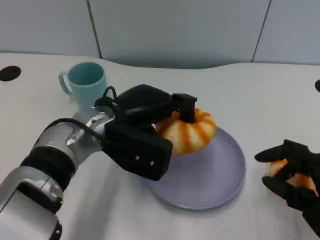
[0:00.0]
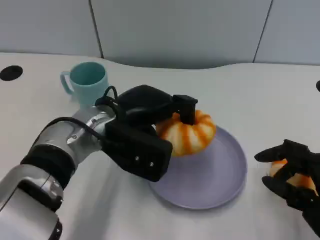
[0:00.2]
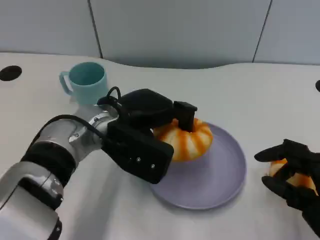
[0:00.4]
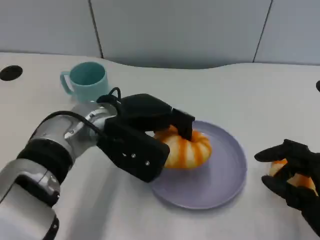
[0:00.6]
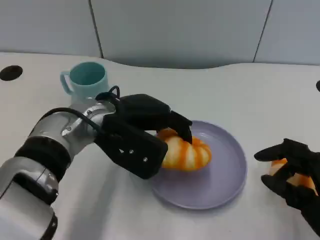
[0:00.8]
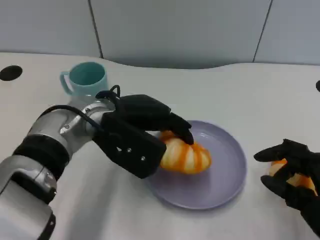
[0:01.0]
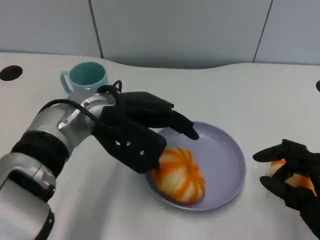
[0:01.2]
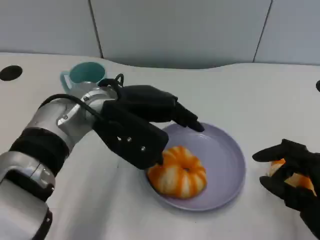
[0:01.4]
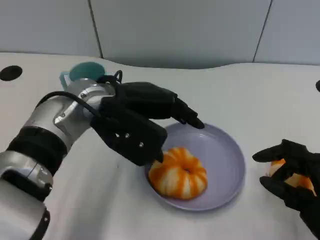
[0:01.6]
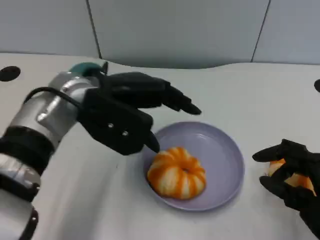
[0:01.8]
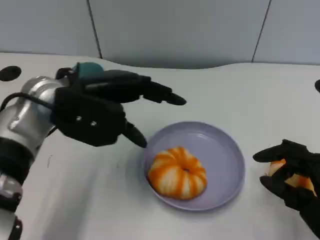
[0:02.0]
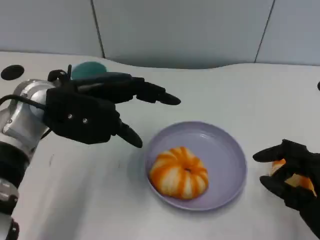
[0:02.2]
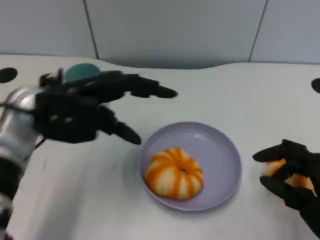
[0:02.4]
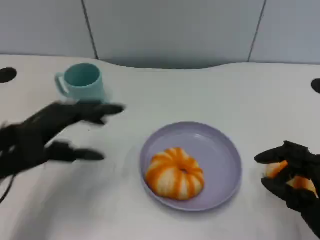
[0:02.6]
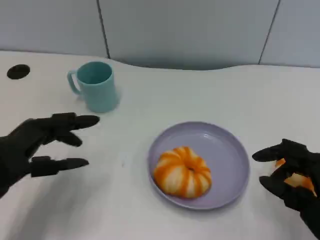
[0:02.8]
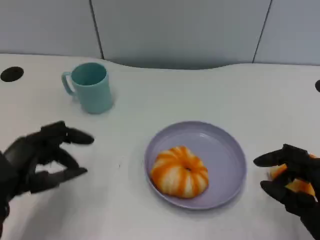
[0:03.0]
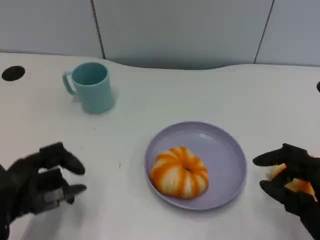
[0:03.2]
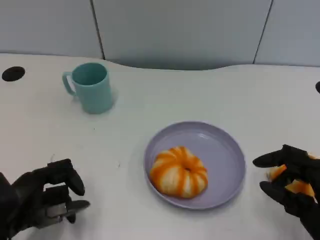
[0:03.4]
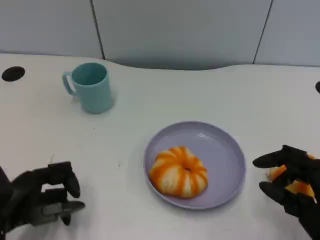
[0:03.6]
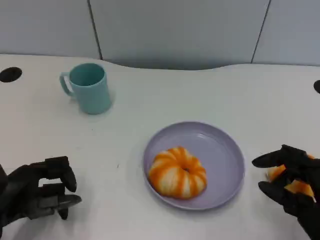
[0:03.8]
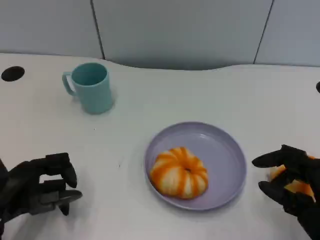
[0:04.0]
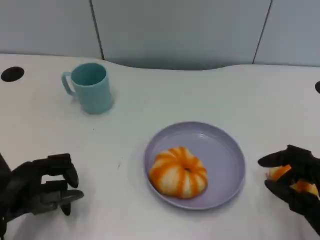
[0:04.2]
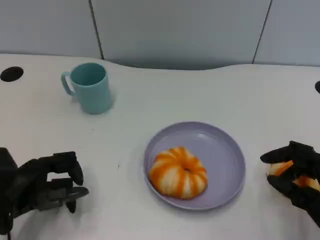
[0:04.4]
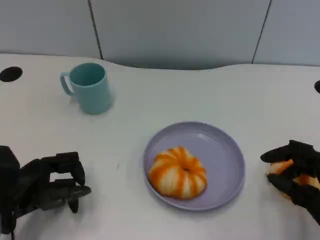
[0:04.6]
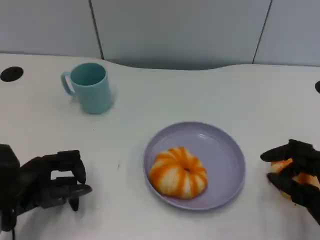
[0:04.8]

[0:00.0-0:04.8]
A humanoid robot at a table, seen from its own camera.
Task of the whole recording: Grasp the bread from the table and place it into the plate.
0:01.6 to 0:03.2: The left hand shifts some 25 cm to the left, backward and downward.
0:03.2 to 0:04.8: The left hand shifts by about 5 cm.

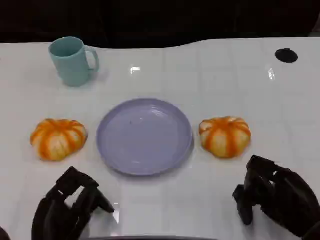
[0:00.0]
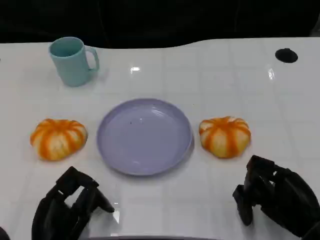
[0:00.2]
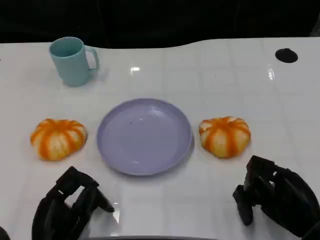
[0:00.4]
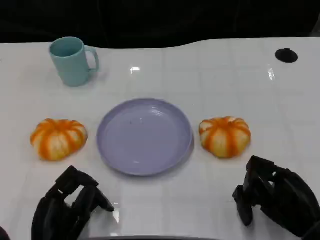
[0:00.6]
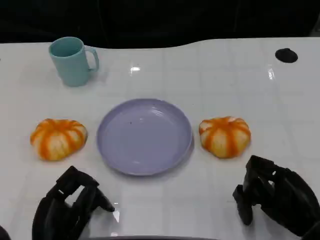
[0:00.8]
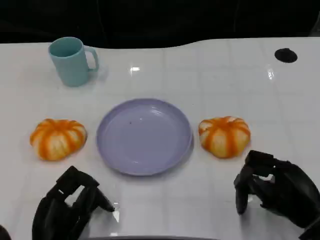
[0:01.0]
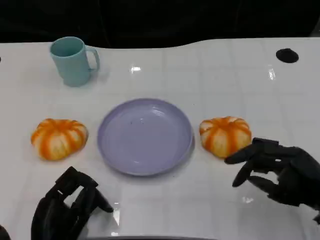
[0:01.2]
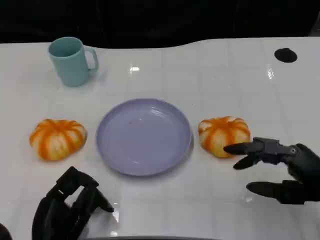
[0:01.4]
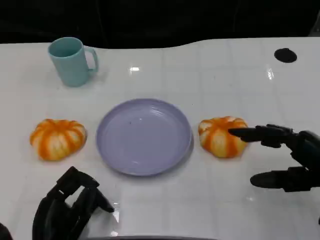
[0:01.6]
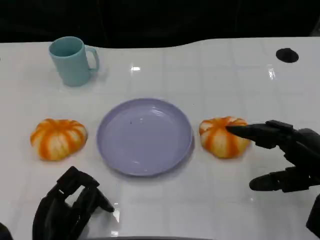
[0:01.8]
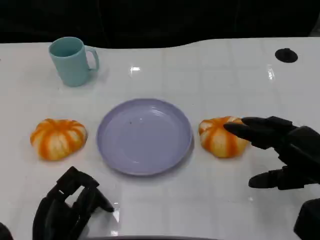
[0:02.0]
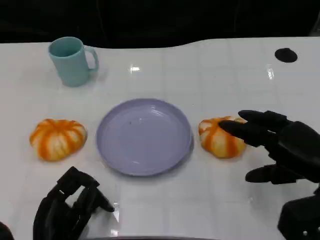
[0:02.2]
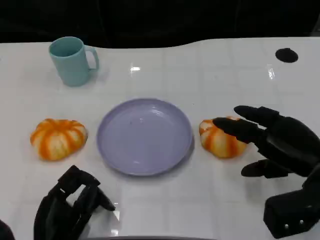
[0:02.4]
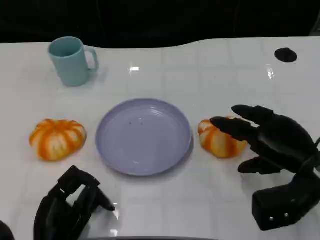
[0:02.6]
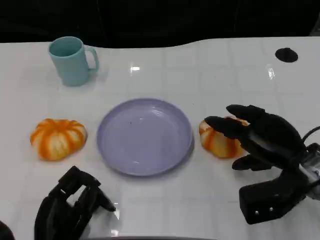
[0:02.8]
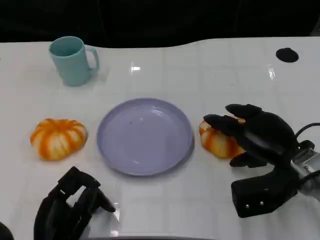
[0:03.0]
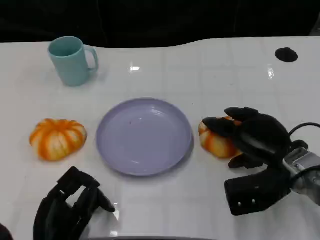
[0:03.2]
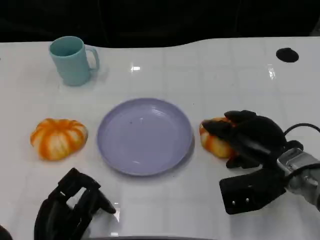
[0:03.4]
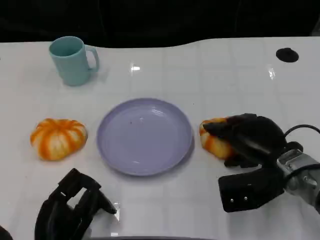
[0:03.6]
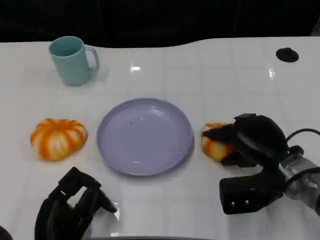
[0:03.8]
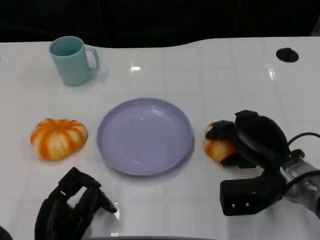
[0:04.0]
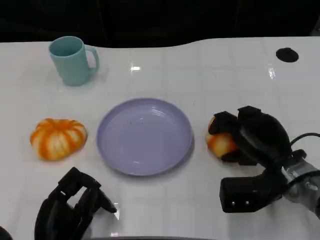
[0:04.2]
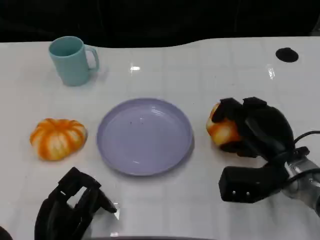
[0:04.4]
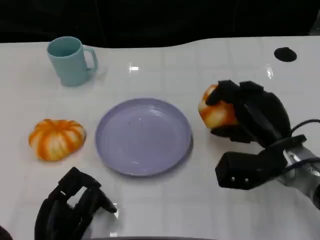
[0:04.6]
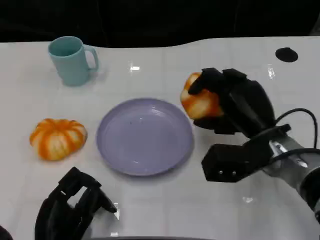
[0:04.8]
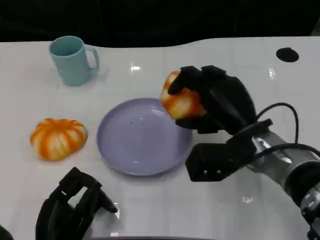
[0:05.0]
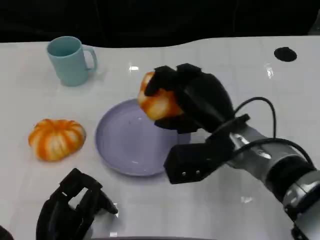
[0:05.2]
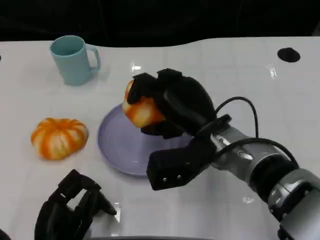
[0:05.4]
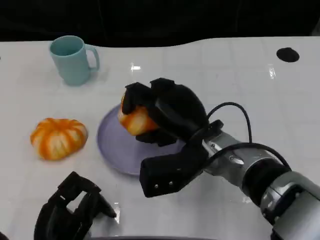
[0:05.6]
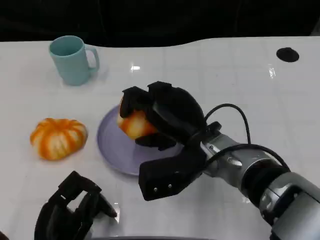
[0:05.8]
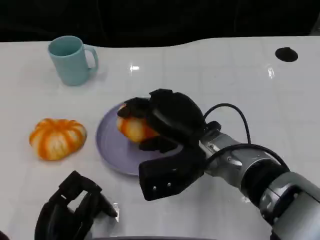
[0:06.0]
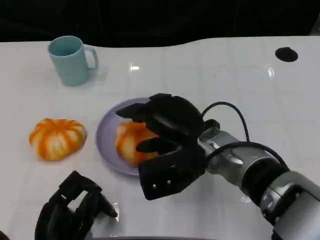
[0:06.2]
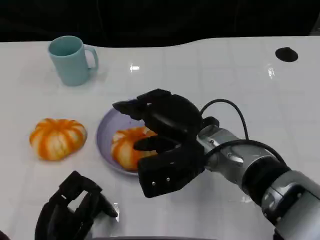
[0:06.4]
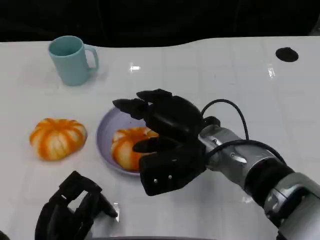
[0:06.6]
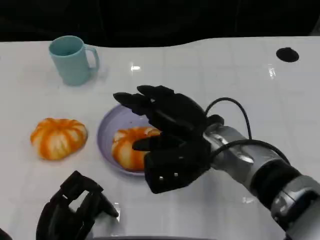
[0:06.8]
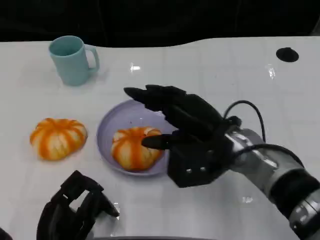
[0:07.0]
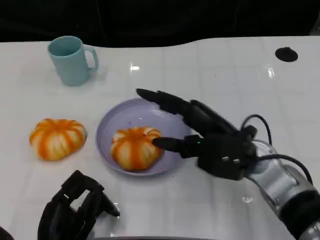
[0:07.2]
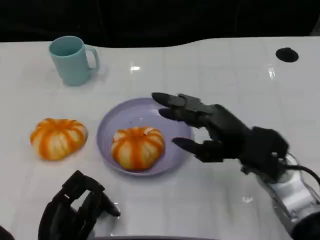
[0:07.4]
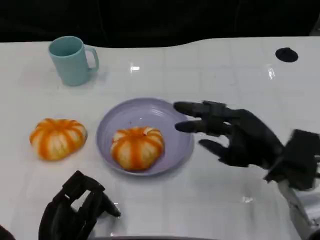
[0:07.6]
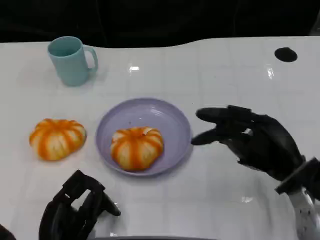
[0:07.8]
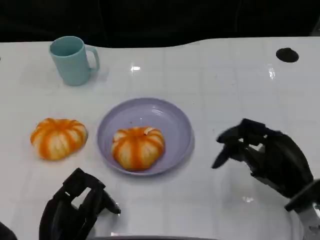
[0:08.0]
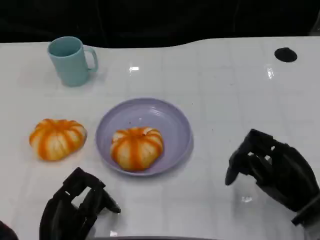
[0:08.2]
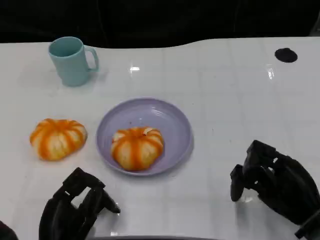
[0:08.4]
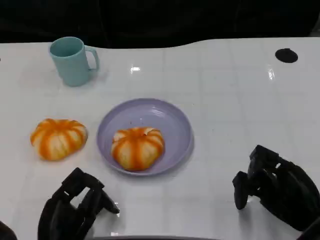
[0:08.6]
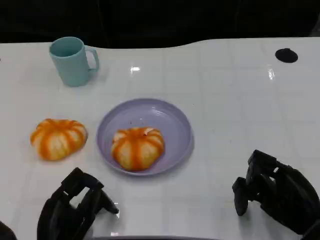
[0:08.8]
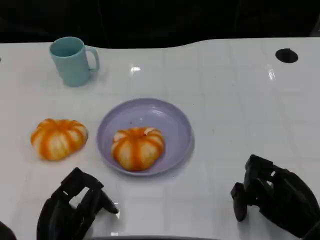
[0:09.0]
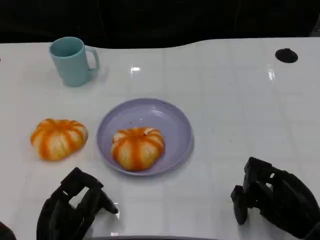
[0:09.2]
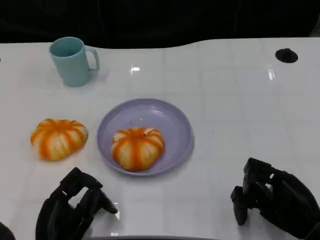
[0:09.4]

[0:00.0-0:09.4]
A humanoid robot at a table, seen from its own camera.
Task of the whole recording: Grasp the bread from the table and place it into the plate.
0:00.0 to 0:01.6: The right hand moves upward, about 10 cm.
0:01.6 to 0:03.2: The right hand goes about 10 cm to the left and forward.
0:03.2 to 0:04.8: The right hand moves some 5 cm.
0:04.8 to 0:06.2: The right hand is displaced to the left by some 10 cm.
0:06.2 to 0:07.8: The right hand is displaced to the right by roughly 15 cm.
0:07.8 to 0:09.4: The right hand goes roughly 5 cm backward.
